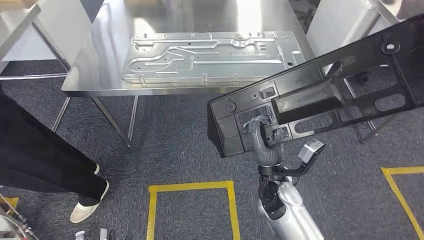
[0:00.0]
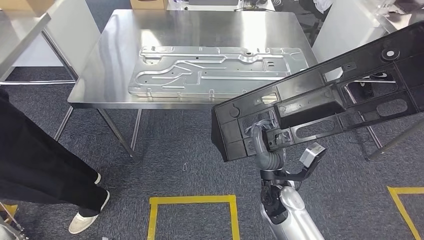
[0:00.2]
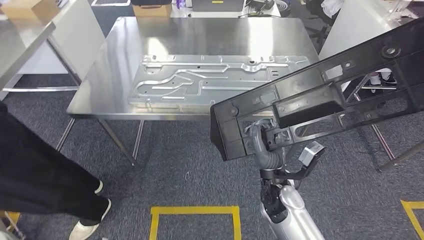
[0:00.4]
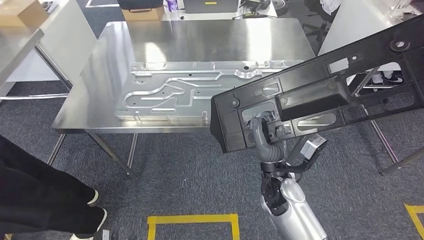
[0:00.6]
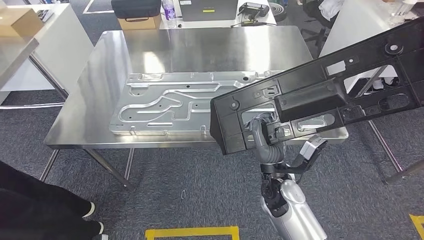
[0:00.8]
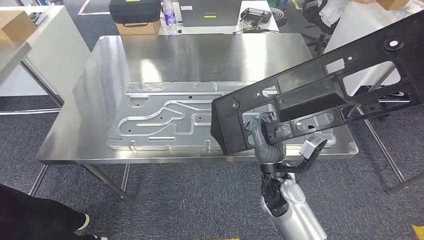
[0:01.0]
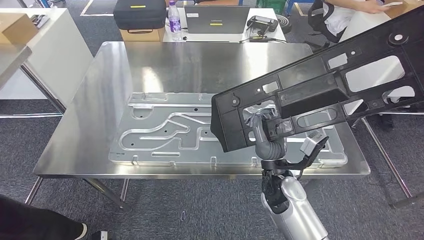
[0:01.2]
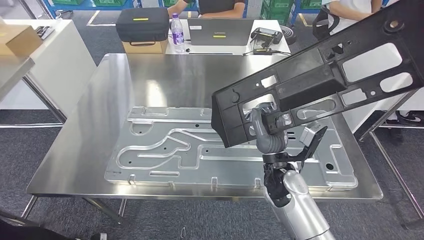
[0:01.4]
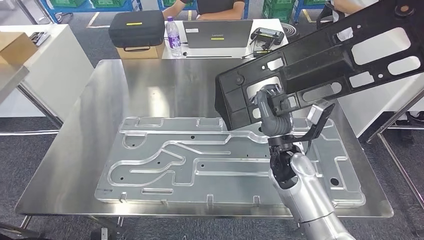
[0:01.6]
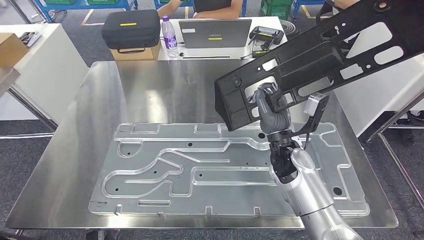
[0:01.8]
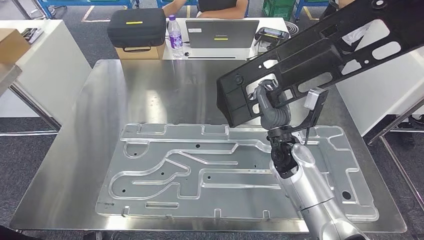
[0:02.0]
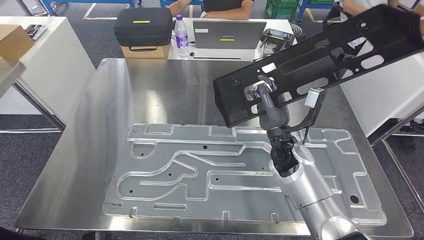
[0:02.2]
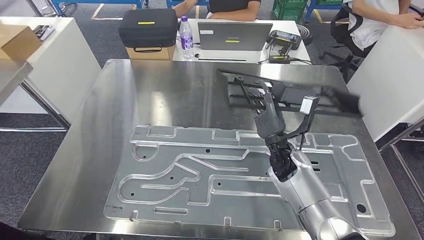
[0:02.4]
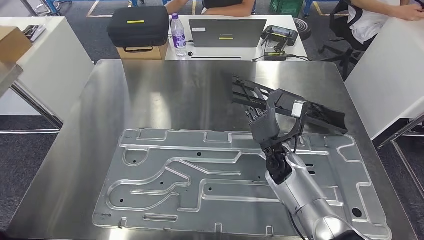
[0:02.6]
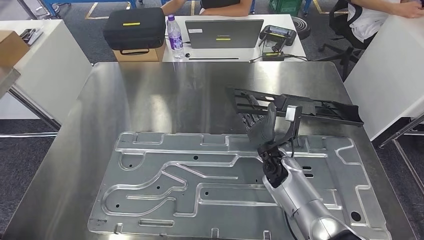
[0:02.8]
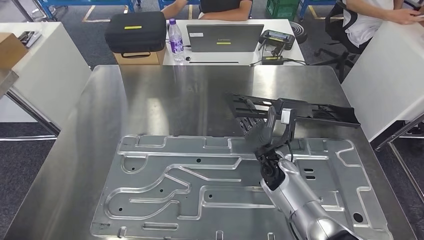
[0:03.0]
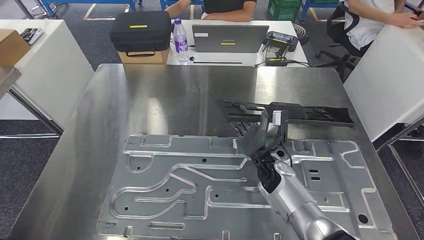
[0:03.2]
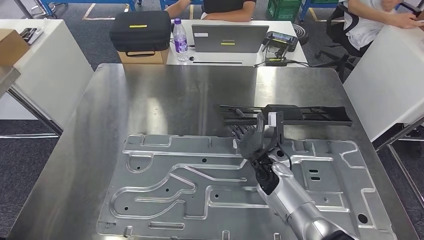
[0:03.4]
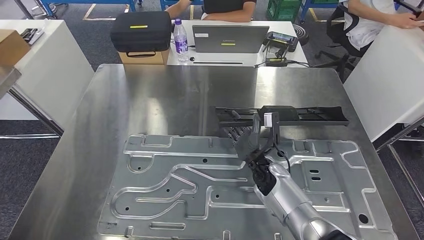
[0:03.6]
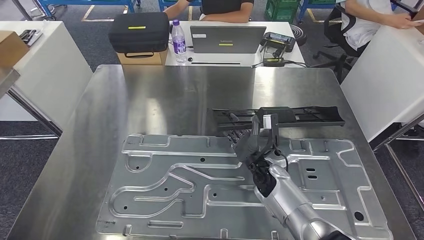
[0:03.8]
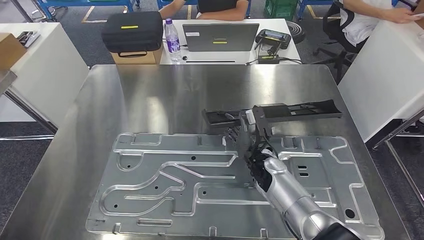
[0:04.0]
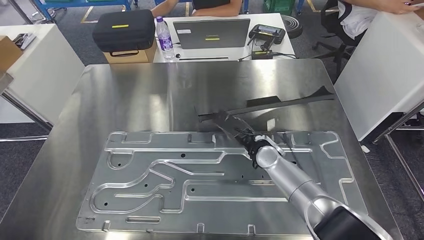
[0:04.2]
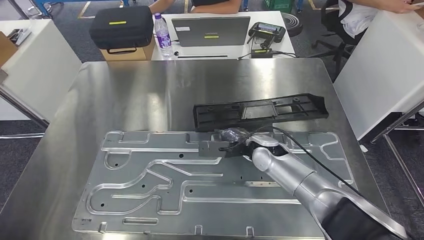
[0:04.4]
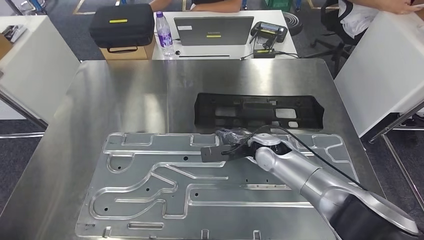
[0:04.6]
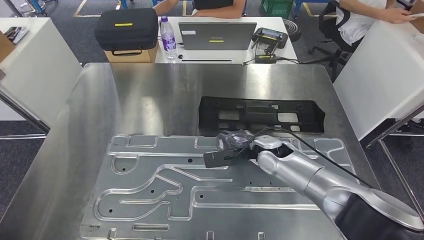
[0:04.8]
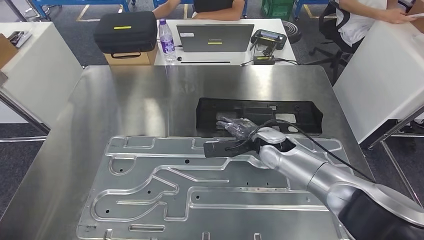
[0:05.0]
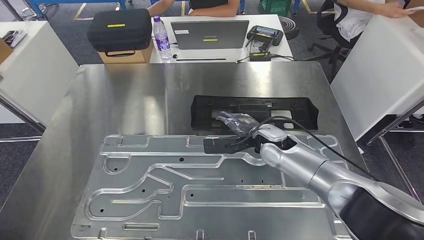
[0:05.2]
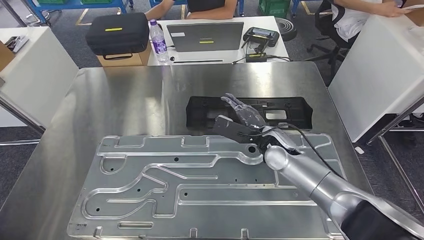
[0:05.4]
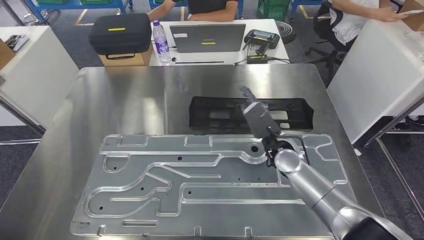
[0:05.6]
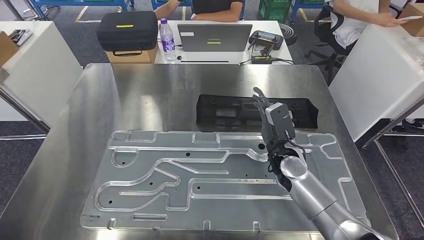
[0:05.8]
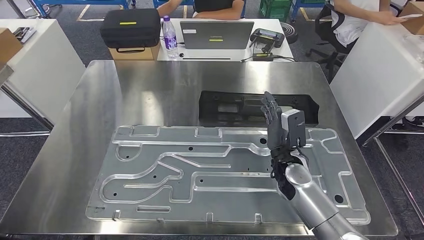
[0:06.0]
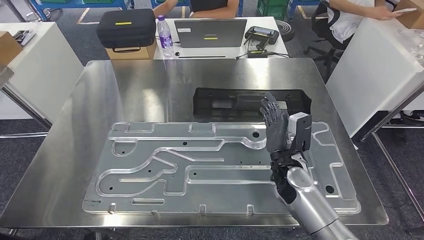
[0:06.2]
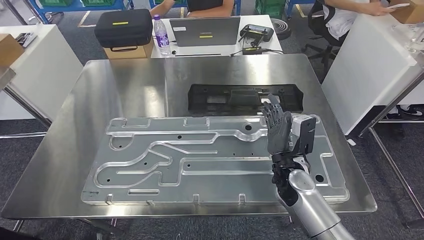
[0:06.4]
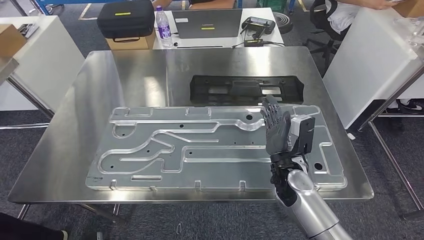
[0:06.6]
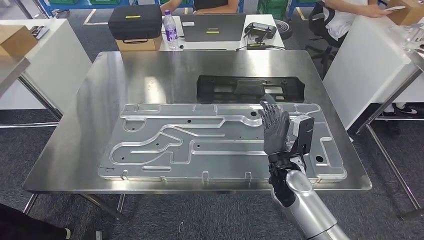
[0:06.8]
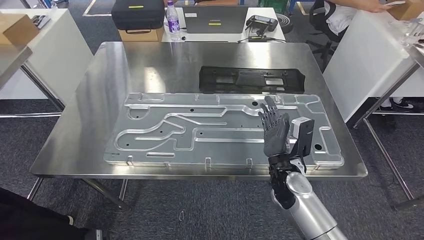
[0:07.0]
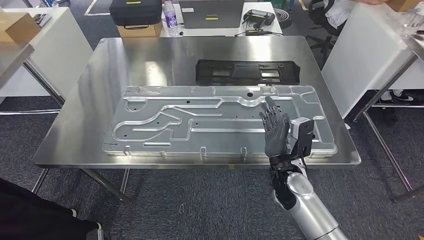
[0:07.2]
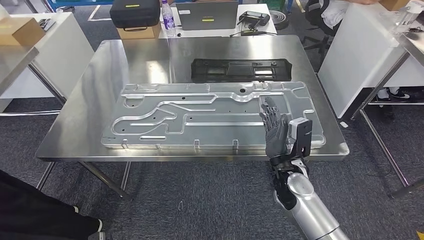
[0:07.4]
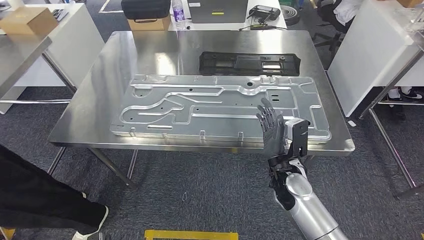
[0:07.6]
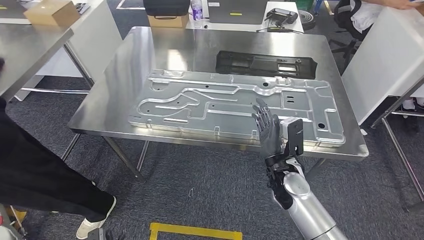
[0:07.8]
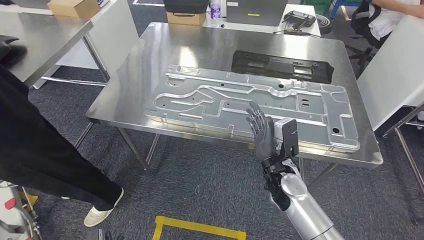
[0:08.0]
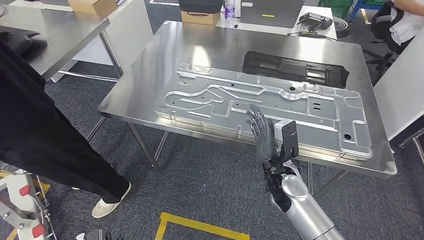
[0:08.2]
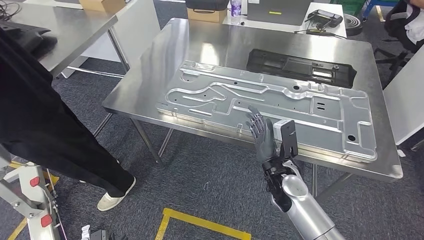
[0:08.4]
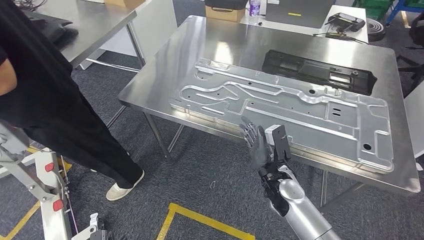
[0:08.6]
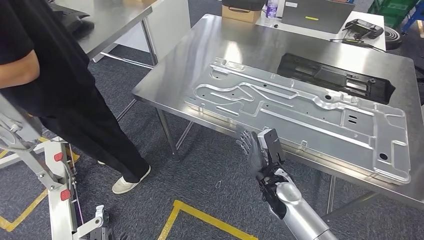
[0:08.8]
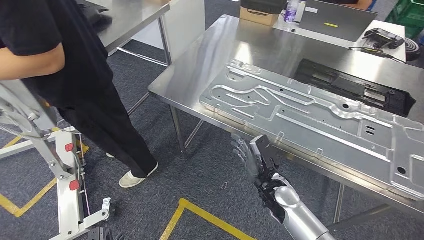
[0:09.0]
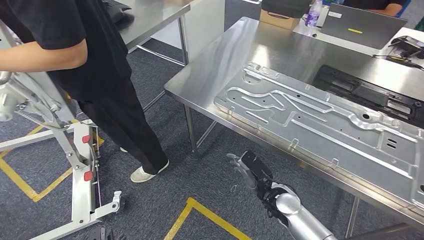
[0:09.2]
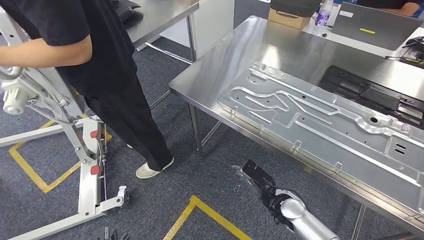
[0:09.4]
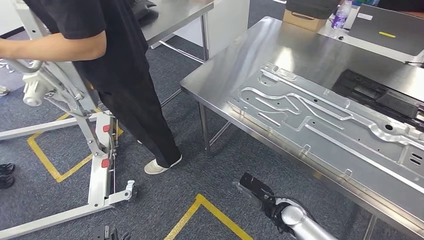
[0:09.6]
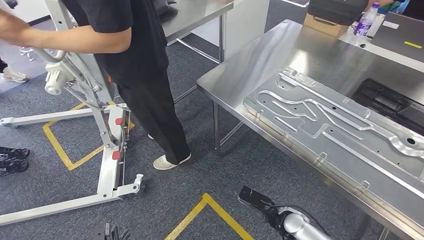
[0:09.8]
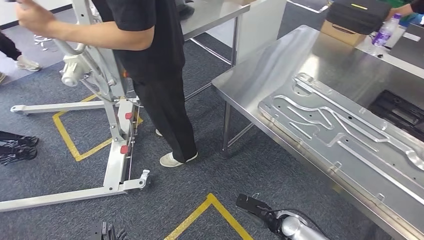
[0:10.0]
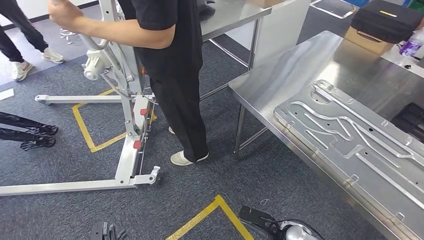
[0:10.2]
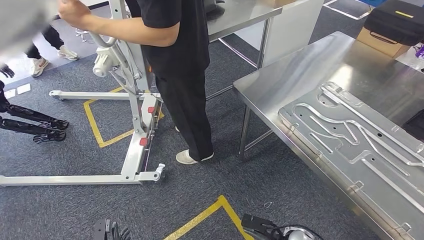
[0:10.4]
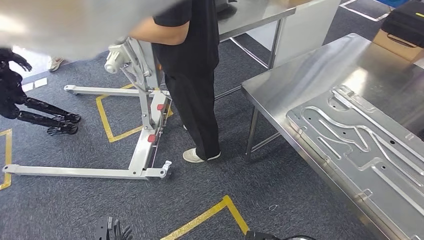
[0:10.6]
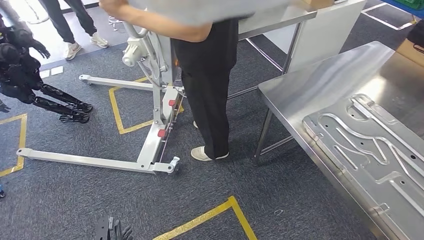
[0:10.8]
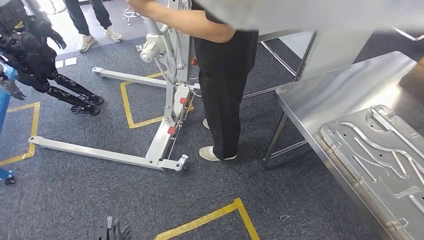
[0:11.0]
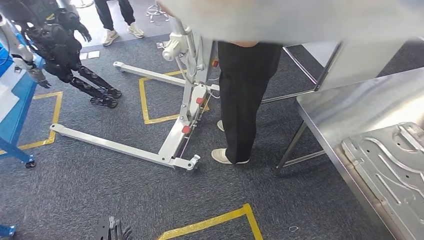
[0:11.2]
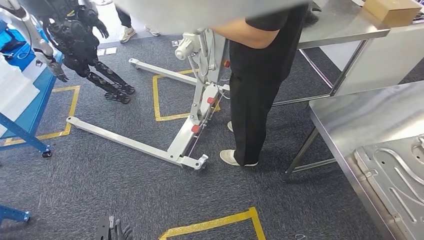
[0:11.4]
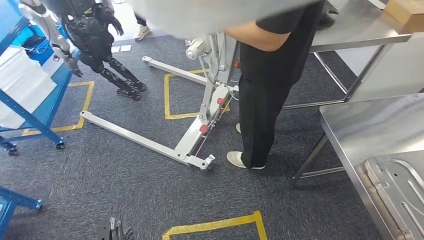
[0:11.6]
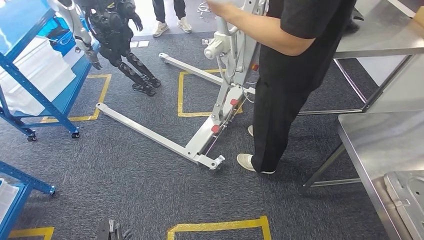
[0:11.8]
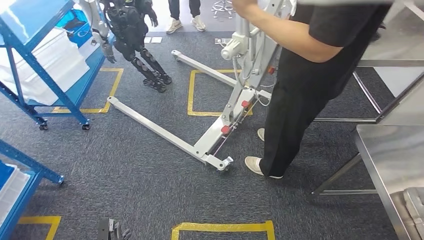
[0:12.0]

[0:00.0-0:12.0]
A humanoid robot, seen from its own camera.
Step, 0:00.0 to 0:02.2: Move the large parts to the workbench.
Step, 0:02.4 to 0:07.4: Insert the large parts into the corresponding slots on the workbench.

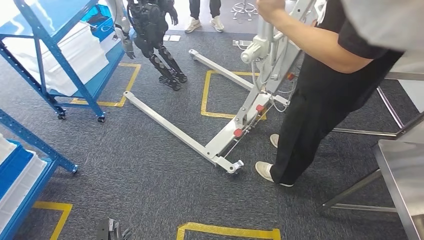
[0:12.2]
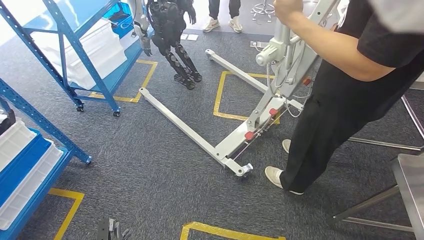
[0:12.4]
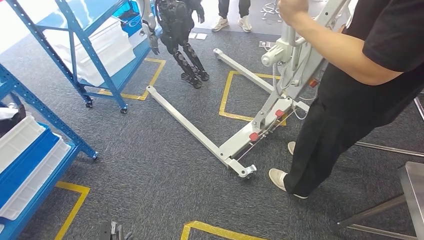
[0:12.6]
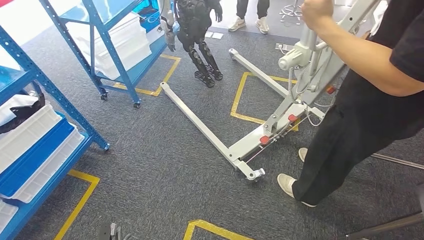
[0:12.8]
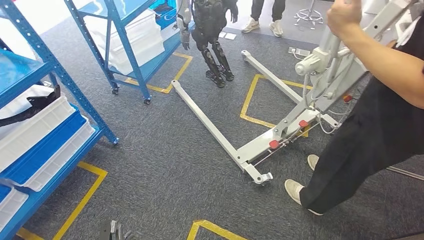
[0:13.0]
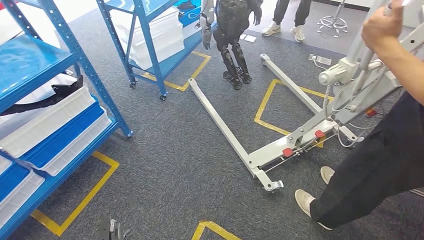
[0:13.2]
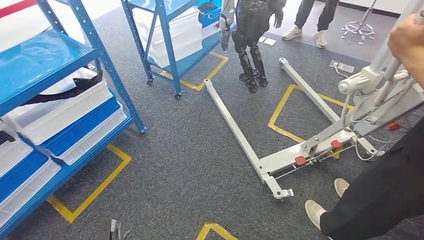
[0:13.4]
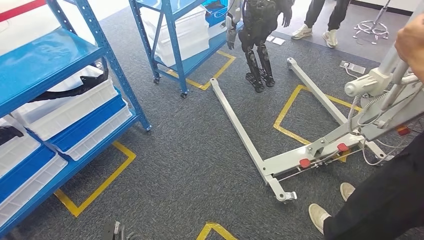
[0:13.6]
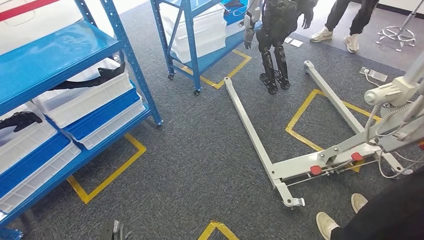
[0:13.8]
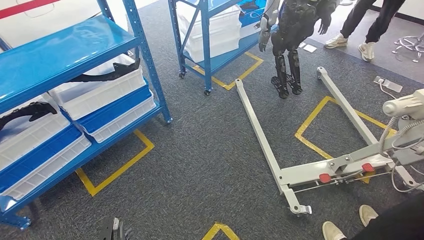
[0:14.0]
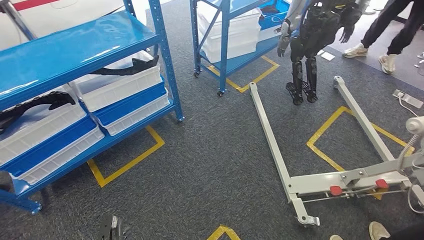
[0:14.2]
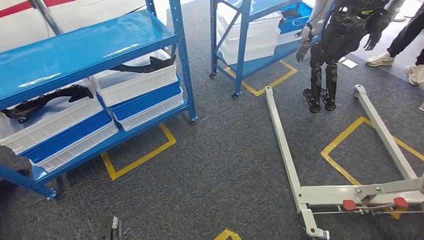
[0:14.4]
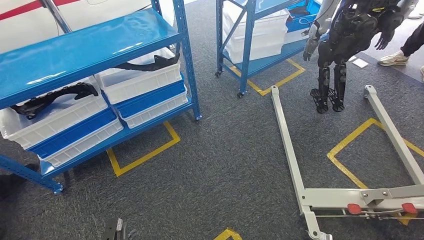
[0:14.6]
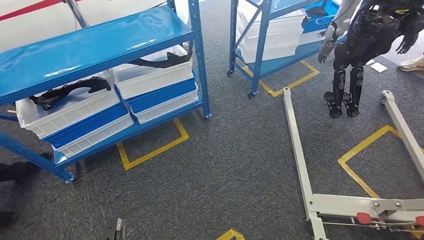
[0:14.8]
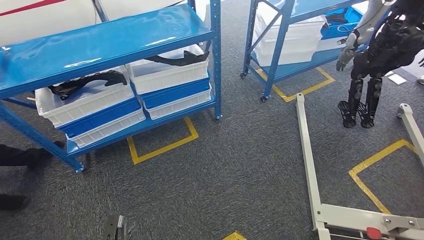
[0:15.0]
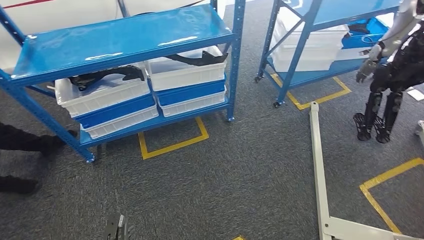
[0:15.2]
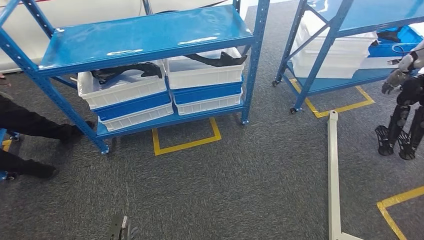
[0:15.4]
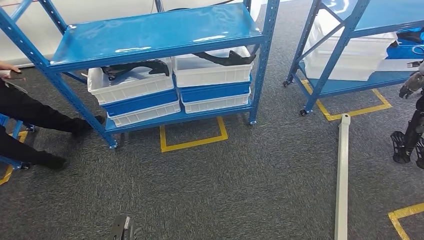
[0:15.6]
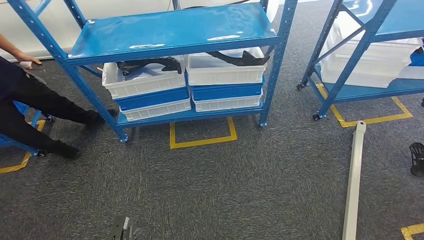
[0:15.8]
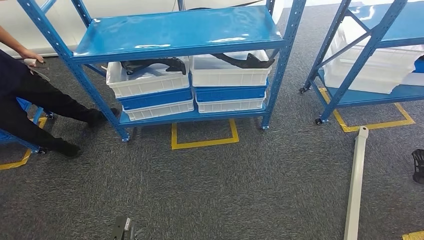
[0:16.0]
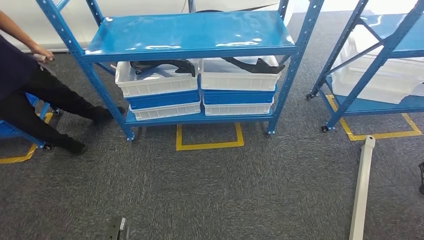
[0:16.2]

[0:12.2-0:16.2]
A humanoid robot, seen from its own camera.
Step, 0:12.2 to 0:16.2: Return to the initial position at the shelf.
